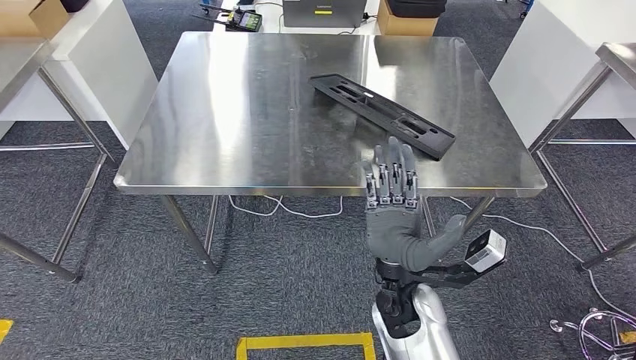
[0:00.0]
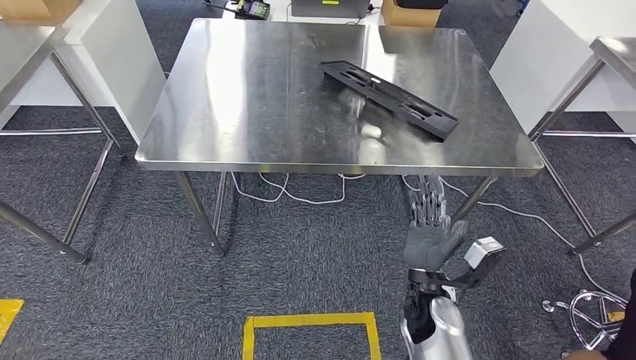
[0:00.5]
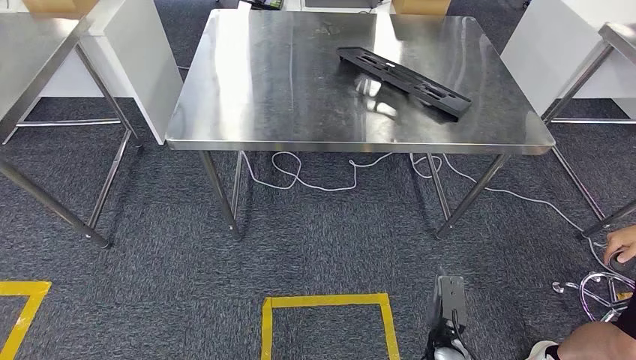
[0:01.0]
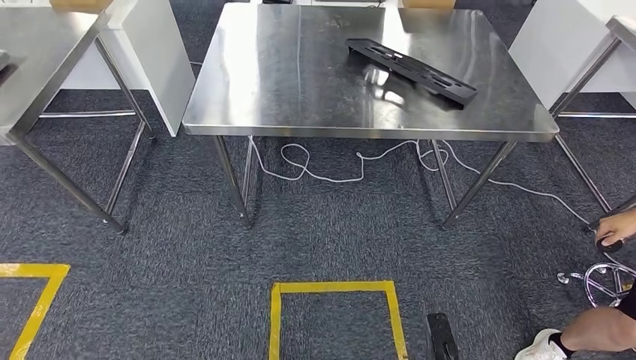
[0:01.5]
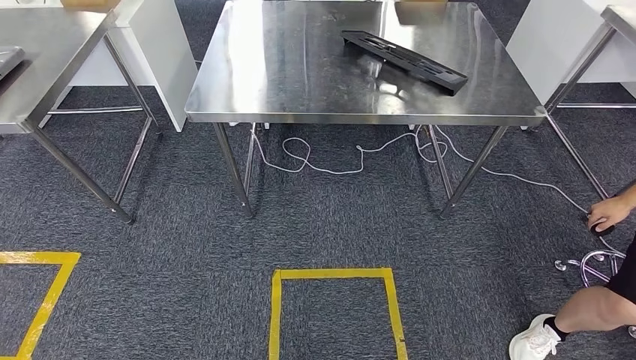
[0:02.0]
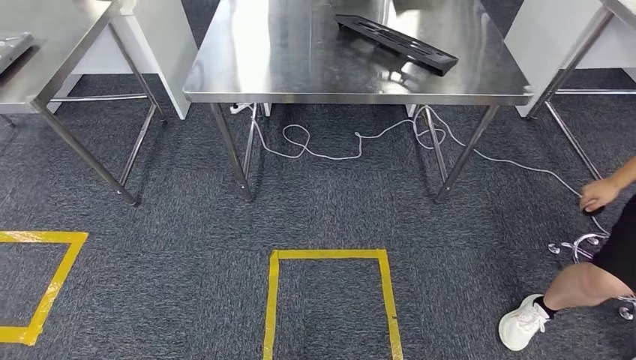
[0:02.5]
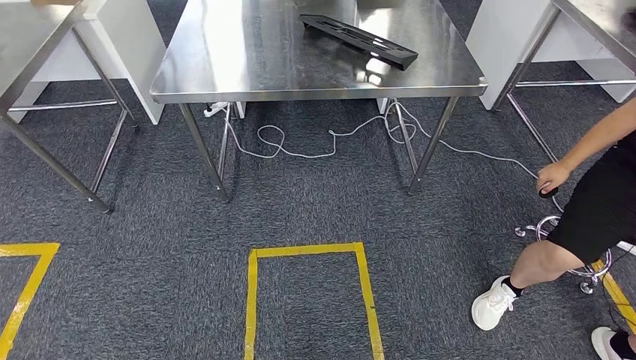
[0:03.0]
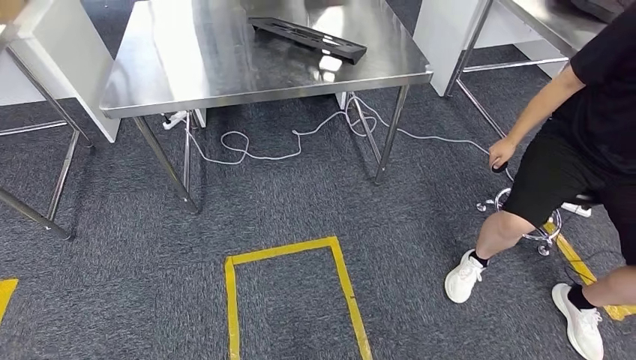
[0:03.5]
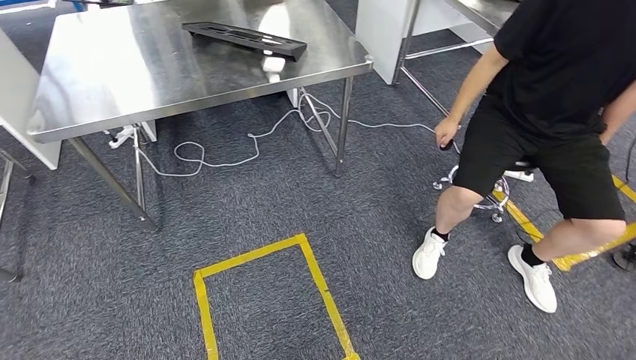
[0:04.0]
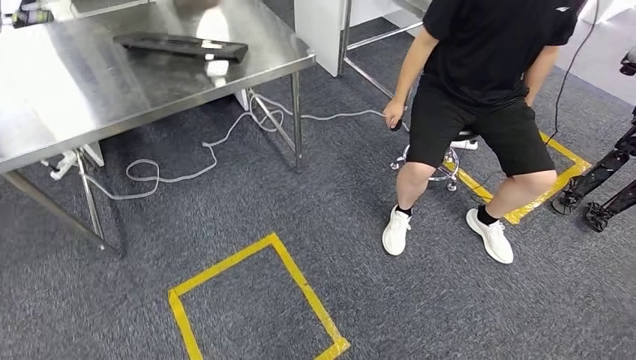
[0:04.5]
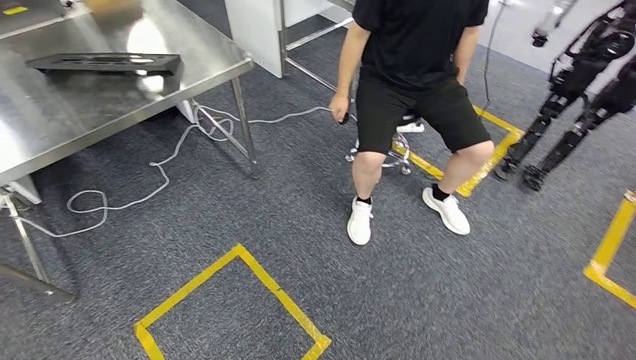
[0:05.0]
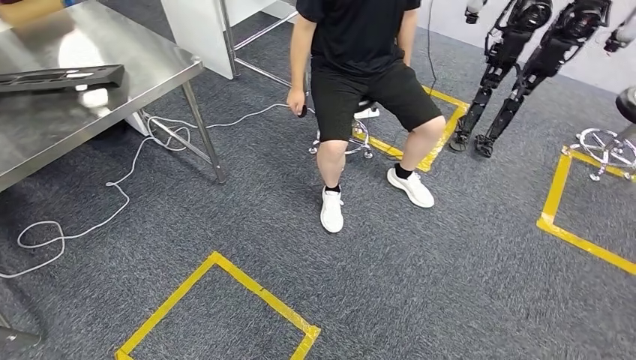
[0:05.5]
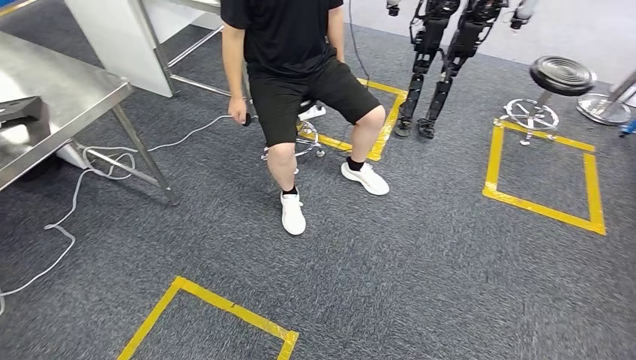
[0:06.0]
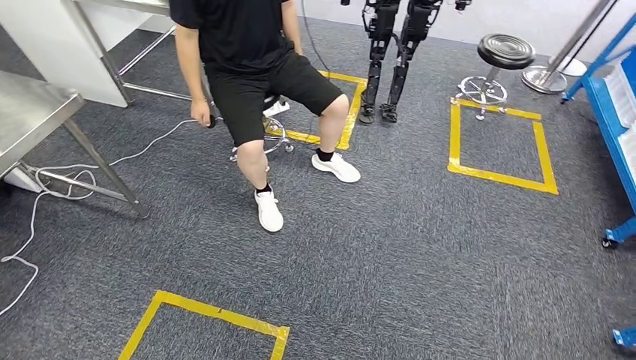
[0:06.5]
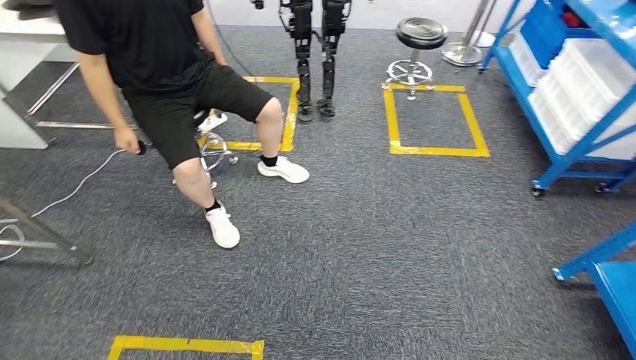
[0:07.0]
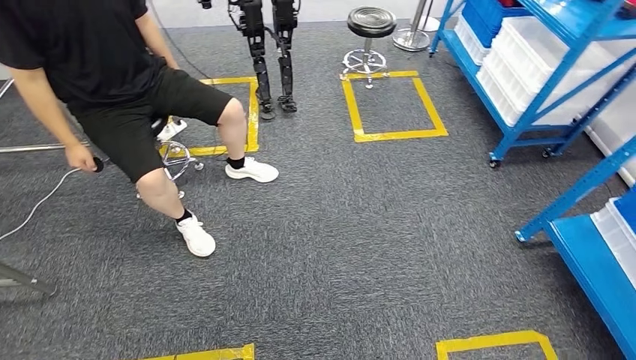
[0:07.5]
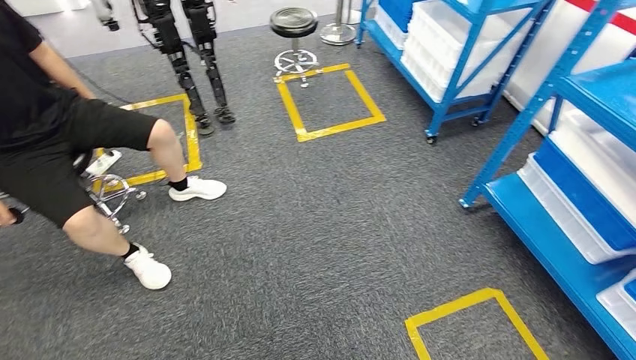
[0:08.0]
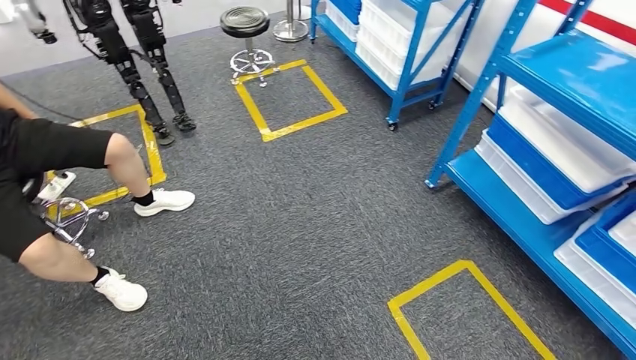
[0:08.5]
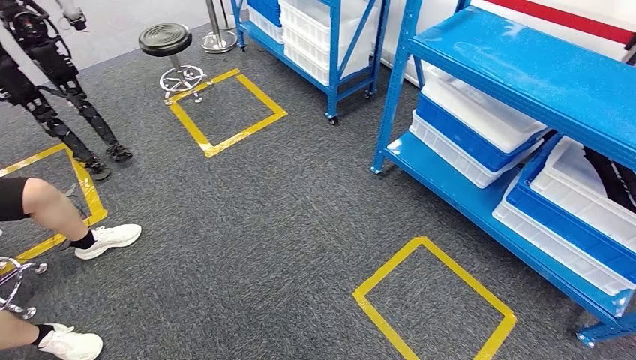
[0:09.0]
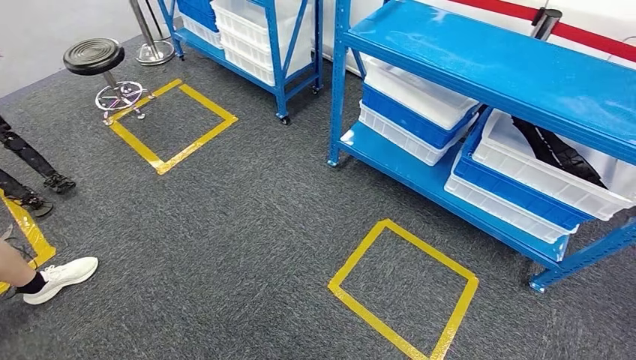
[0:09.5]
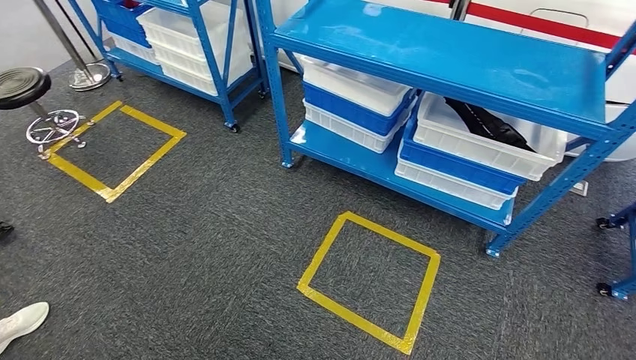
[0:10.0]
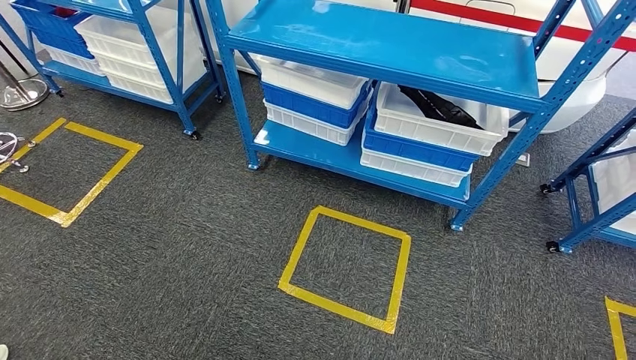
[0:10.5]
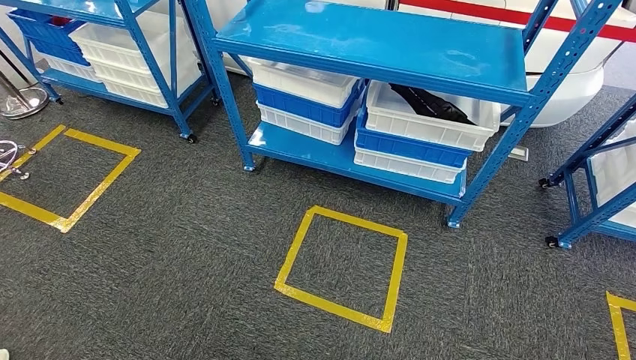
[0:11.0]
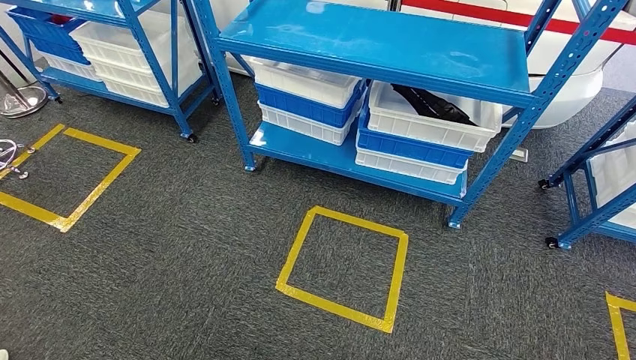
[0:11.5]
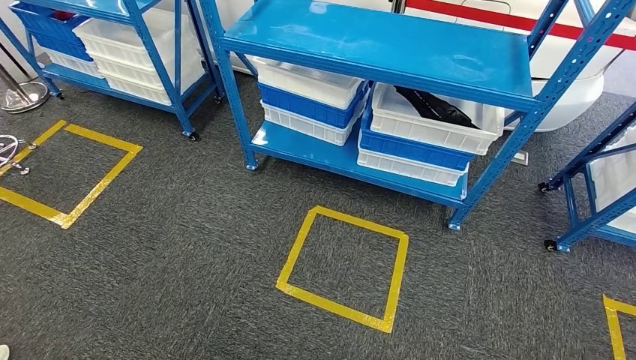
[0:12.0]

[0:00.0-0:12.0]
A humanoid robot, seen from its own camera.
Step, 0:00.0 to 0:03.0: Insert the large material into the corresponding slot on the workbench.

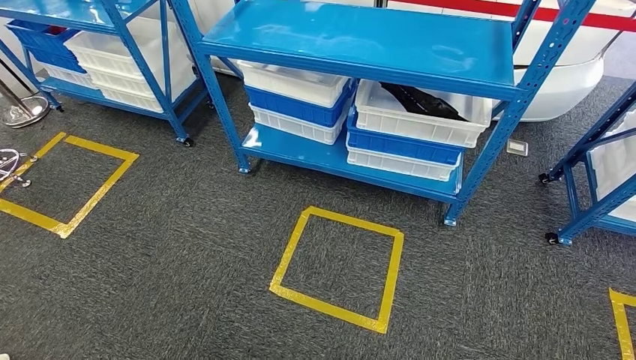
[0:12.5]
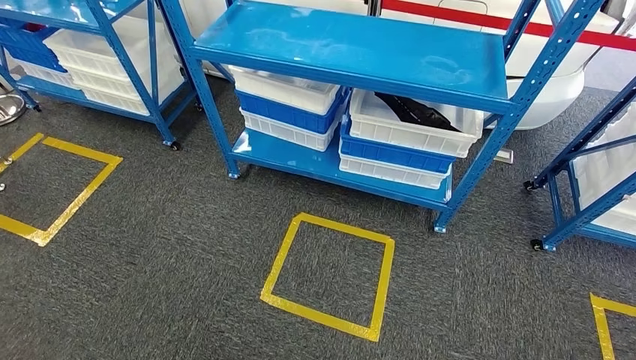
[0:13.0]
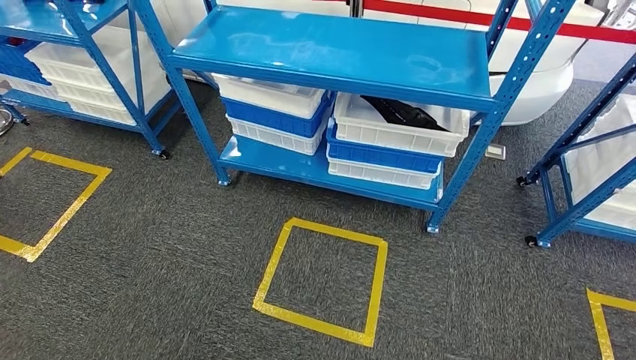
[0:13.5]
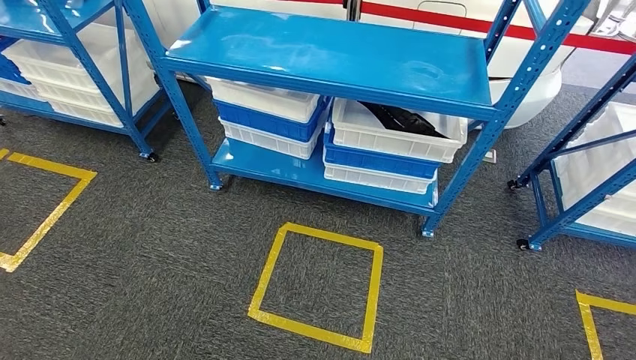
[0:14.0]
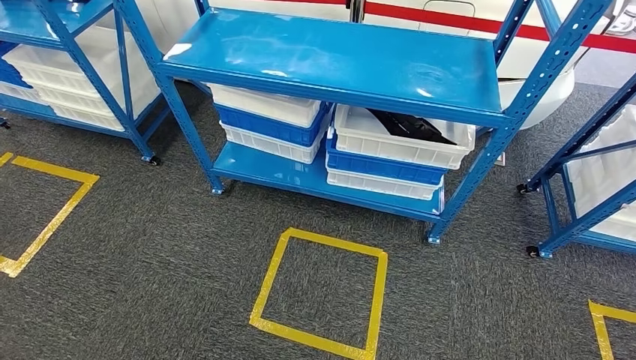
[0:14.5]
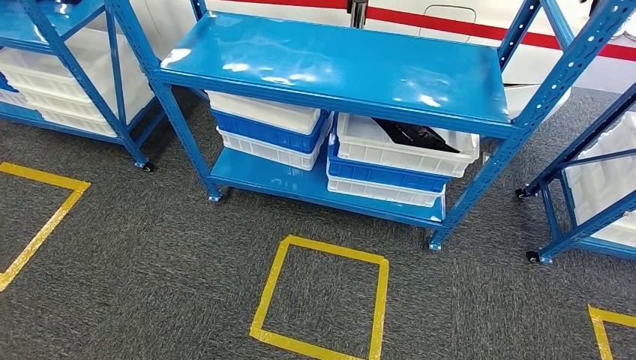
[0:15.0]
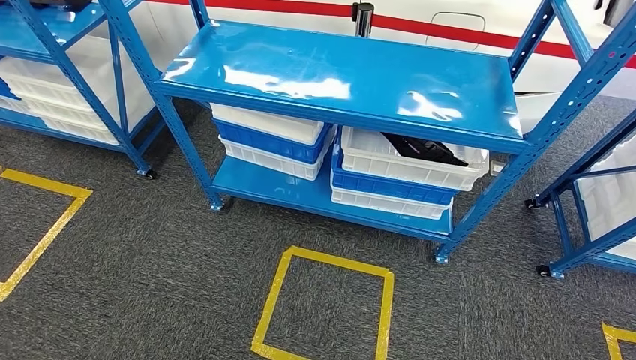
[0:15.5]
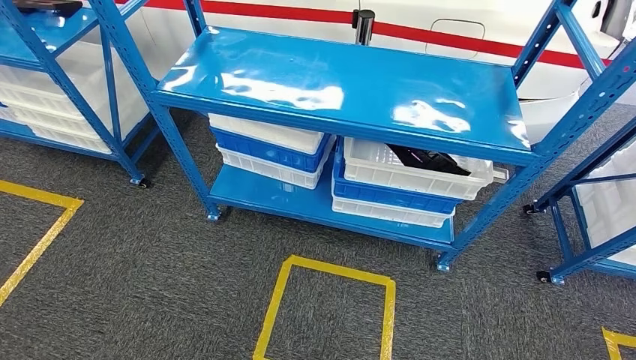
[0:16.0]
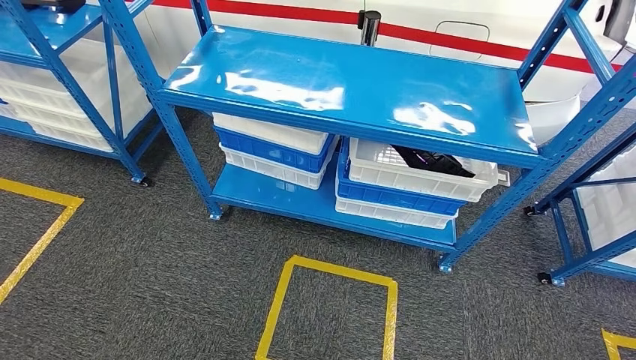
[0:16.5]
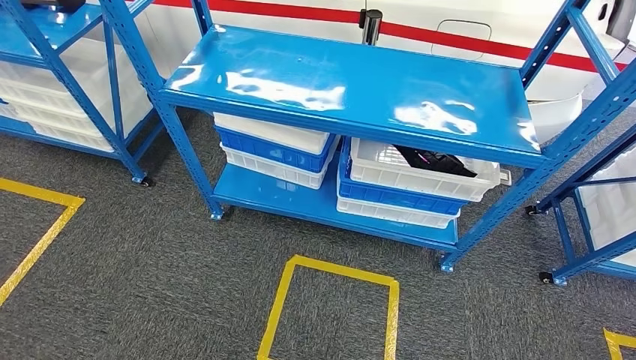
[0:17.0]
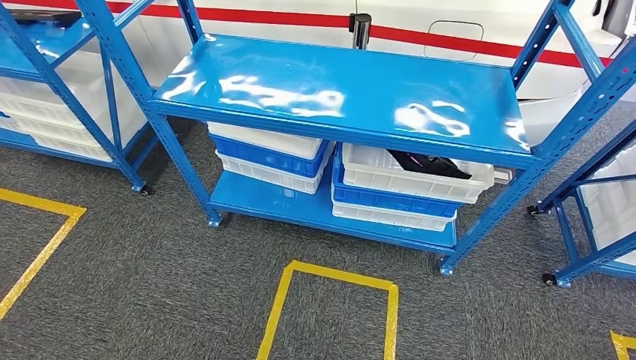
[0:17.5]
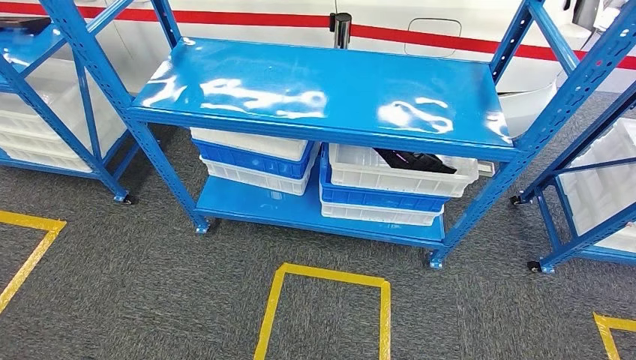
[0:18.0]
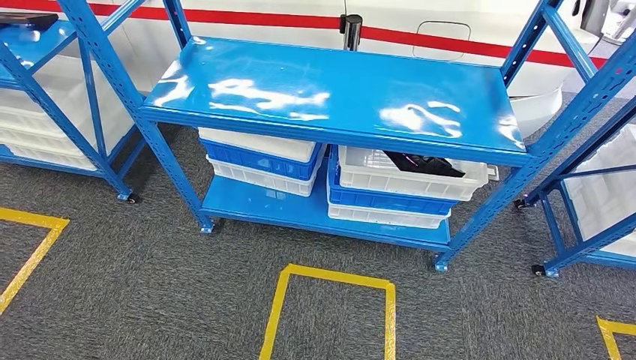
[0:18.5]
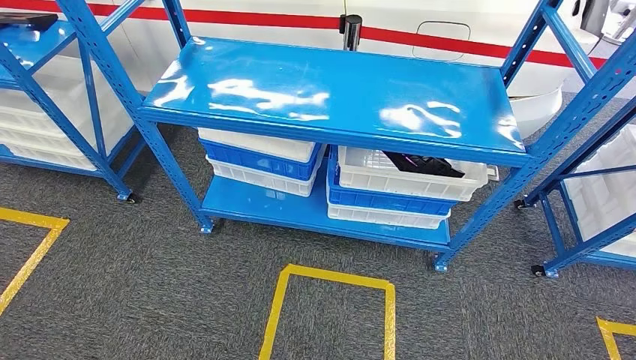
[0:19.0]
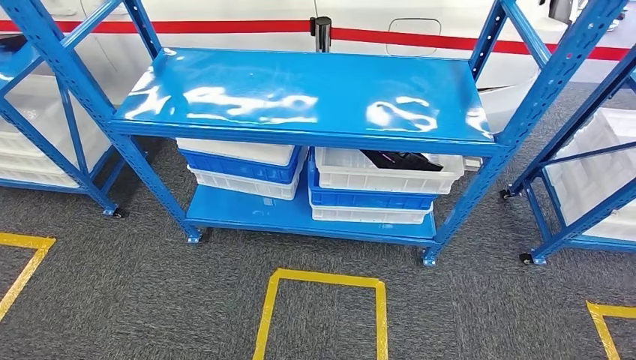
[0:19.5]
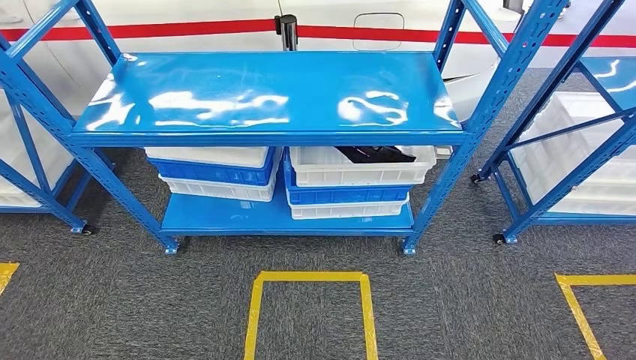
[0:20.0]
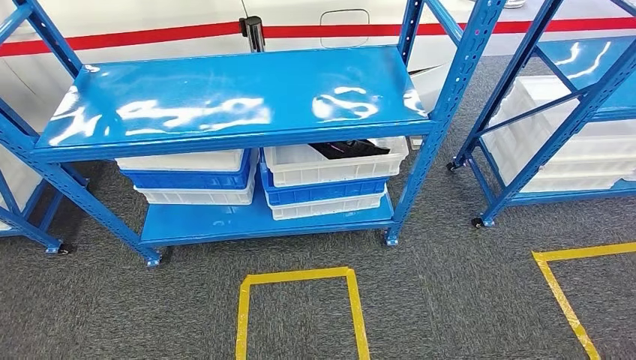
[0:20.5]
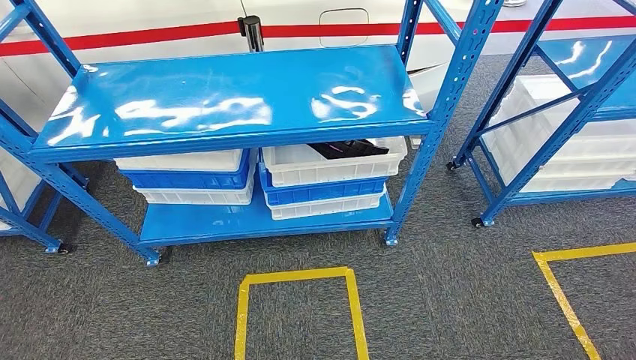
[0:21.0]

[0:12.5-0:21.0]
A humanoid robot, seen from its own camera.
Step, 0:12.5 to 0:21.0: Return to the initial position at the shelf.
